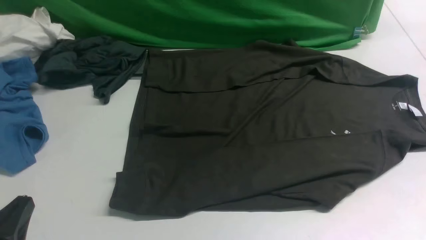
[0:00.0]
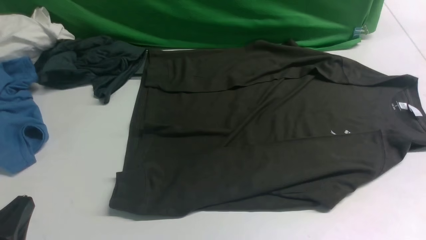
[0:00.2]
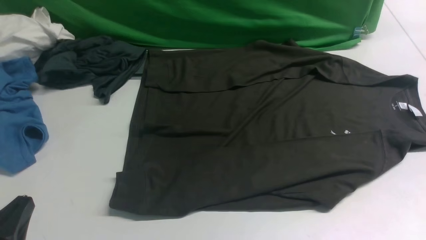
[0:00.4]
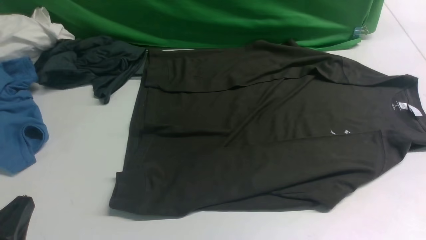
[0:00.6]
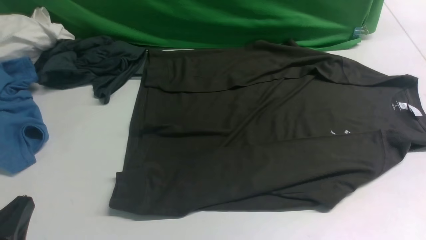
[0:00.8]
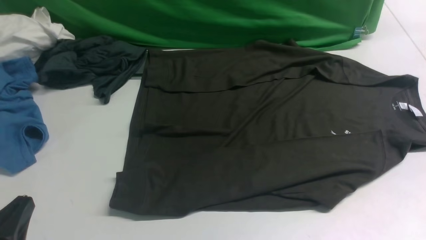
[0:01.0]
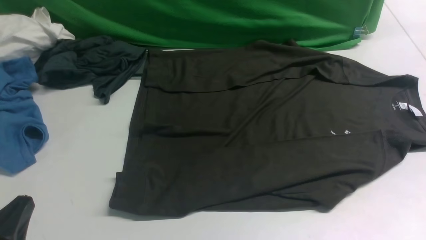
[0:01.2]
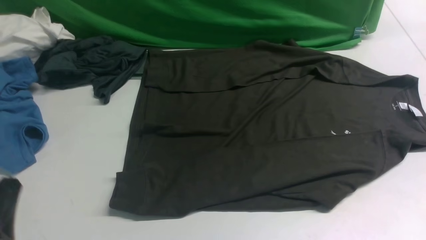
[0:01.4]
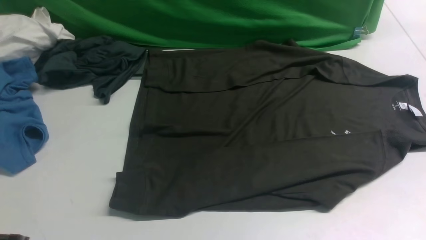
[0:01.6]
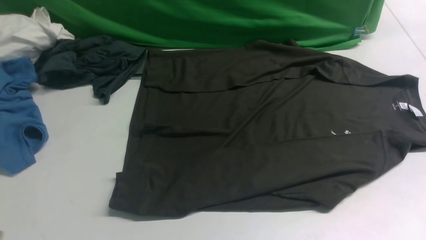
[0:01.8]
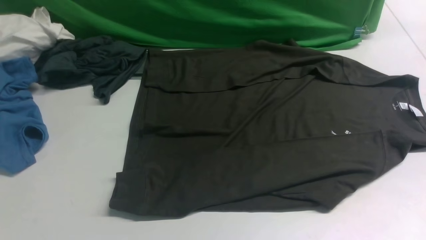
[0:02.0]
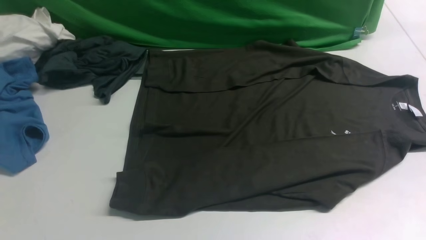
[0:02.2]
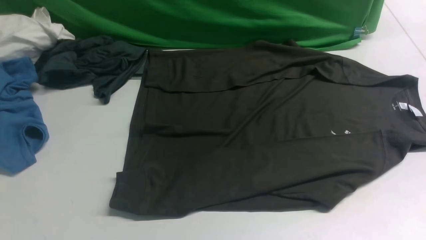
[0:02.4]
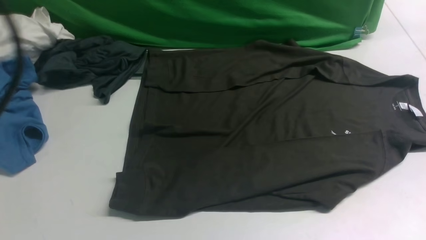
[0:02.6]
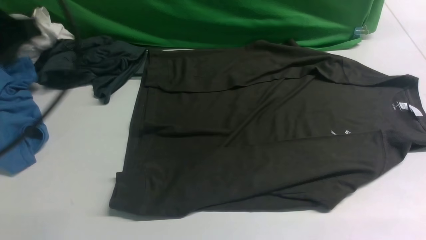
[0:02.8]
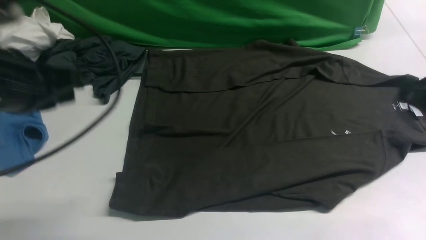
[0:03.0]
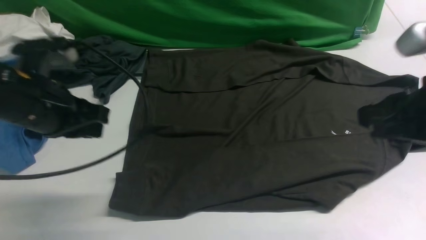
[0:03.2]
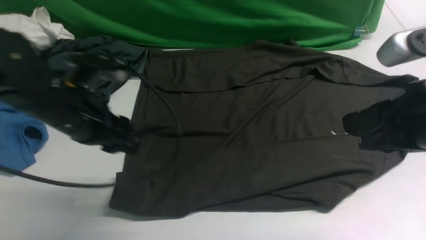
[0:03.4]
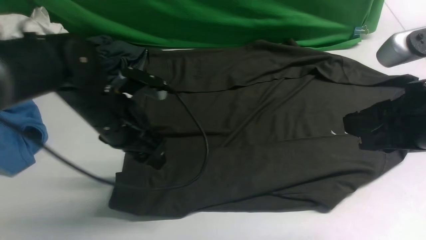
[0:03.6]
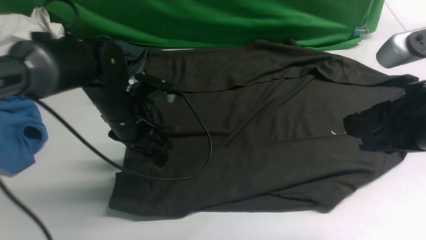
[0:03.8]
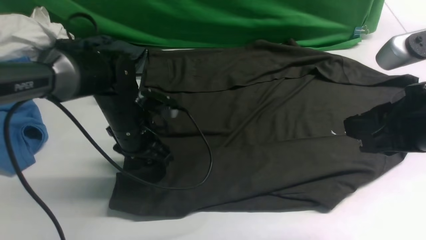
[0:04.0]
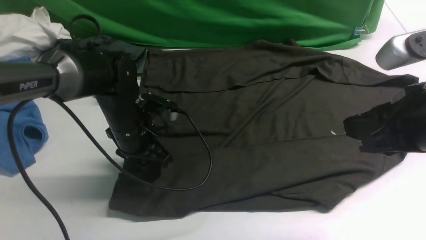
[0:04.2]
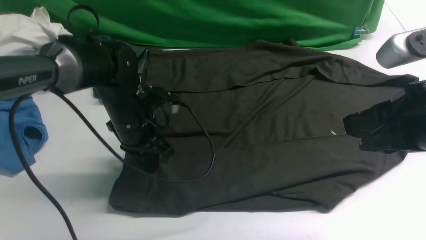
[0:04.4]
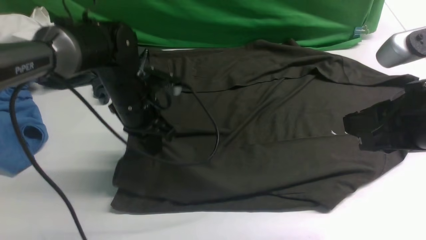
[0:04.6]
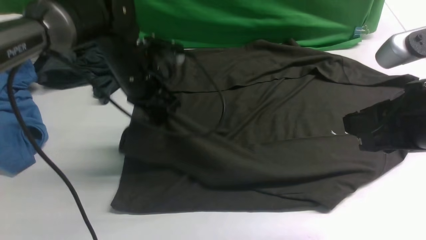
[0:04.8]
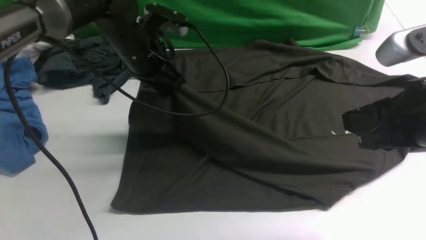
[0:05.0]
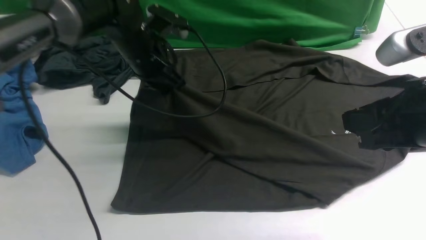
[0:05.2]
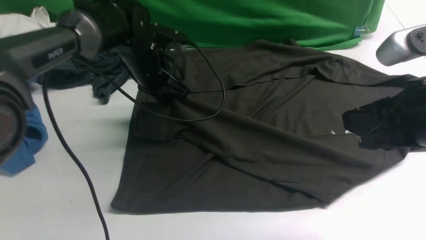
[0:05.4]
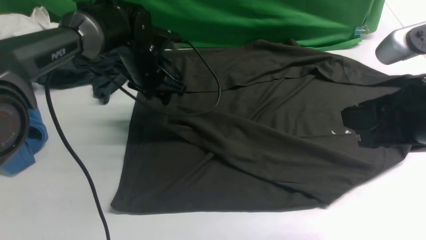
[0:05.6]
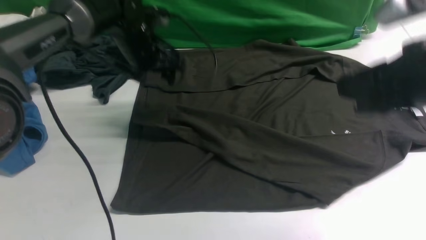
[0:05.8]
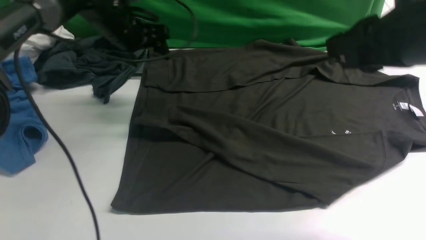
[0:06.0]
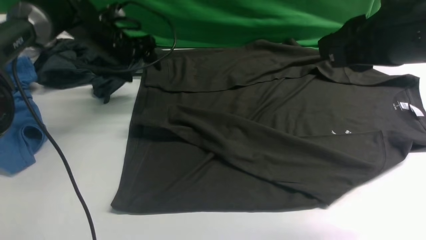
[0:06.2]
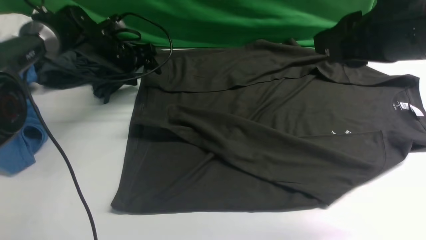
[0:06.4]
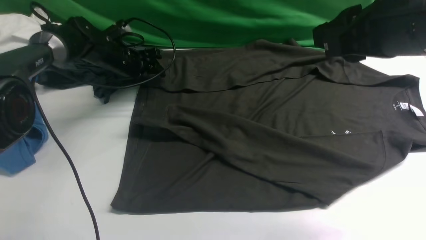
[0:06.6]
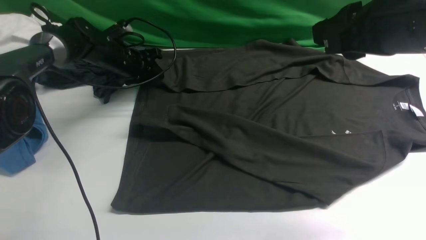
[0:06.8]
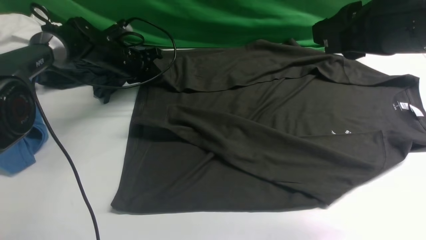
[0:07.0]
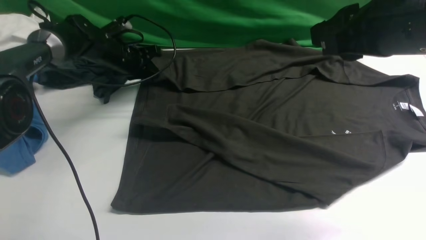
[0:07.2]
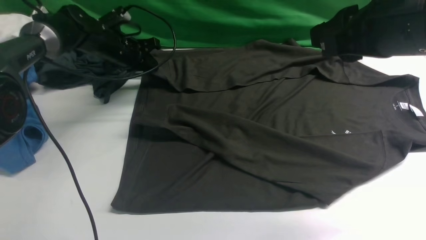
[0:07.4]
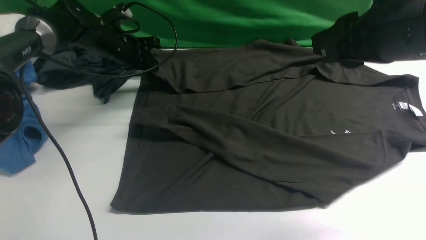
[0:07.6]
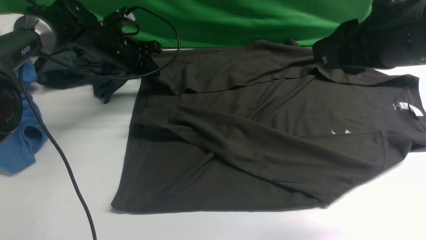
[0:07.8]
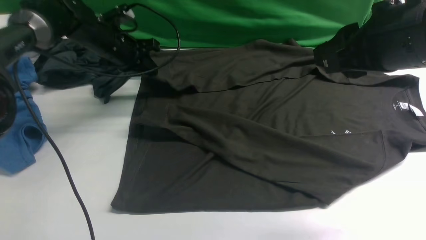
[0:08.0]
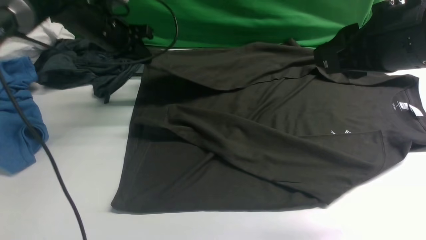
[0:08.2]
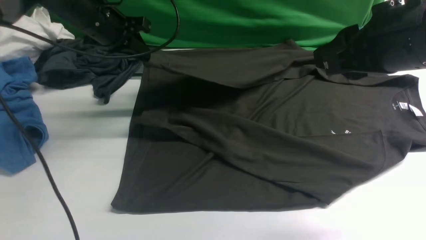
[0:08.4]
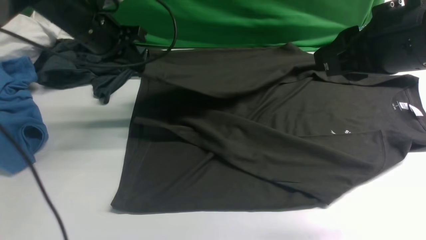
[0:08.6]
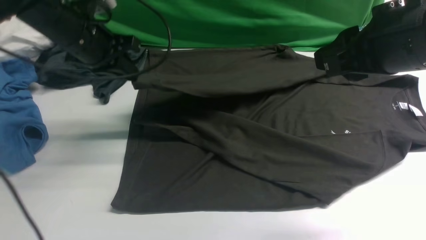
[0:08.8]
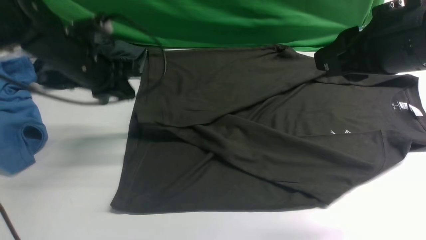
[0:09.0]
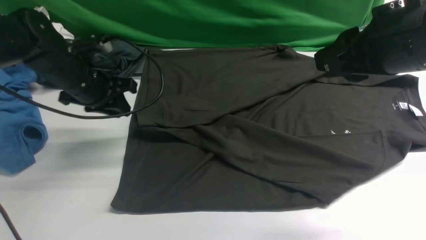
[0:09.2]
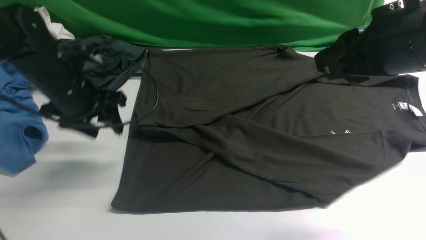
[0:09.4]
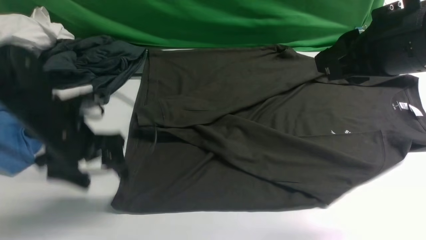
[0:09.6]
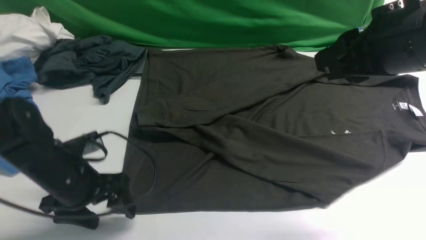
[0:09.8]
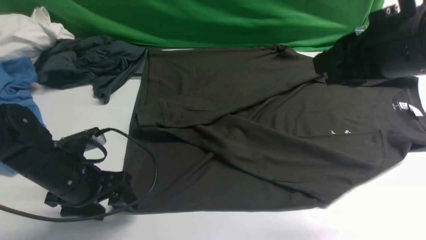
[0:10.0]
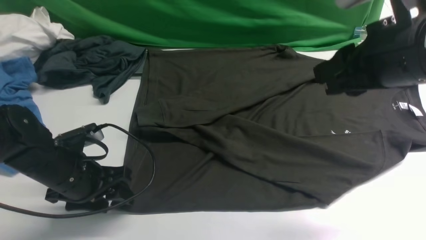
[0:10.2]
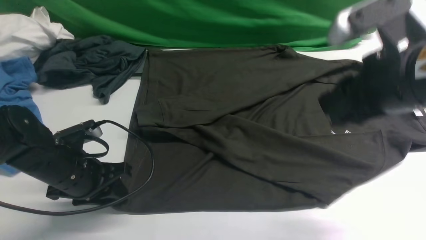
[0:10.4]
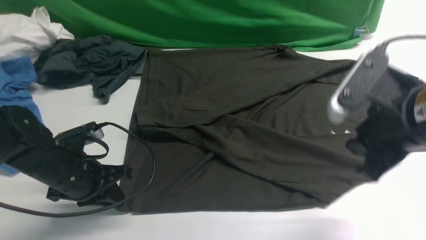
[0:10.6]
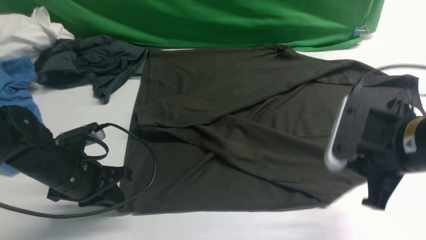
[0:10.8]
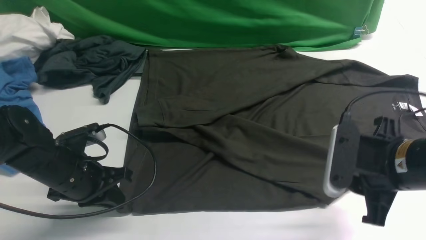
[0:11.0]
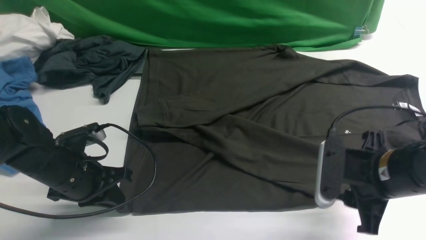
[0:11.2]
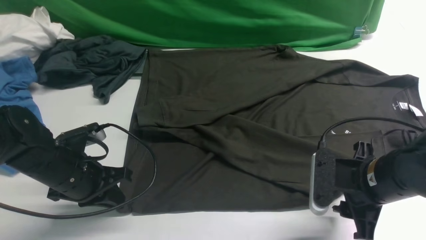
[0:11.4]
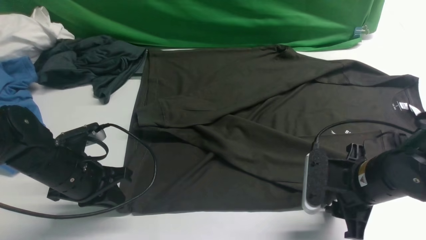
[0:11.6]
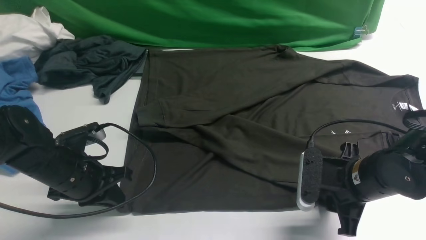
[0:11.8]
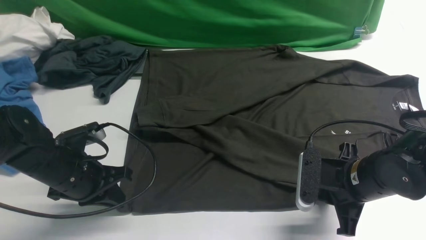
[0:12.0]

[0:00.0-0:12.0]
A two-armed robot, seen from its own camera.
Step, 0:00.0 to 0:04.4: use the left arm to clamp the cuff closest to it.
Step, 0:04.6 to 0:05.8: use the left arm to drag and place the cuff at the centered position on the left edge of the fabric.
Step, 0:06.0 to 0:07.8: use the left arm to clamp the cuff farthest from it.
Step, 0:08.2 to 0:09.0: use the left arm to drag and drop the cuff onto the cuff closest to the left arm.
0:01.6 to 0:03.0: Both grippers travel together forward and upward, some 20 cm.
0:03.0 to 0:04.4: The left gripper goes some 20 cm downward, forward and to the right, and opens, then closes again.
0:04.4 to 0:06.0: The right gripper goes roughly 5 cm upward. Meanwhile the left gripper moves forward, approximately 15 cm, and opens up.
0:06.0 to 0:07.6: The left gripper closes up.
0:07.6 to 0:09.0: The left gripper is displaced backward and upward by about 15 cm.
0:09.0 to 0:10.4: The right gripper goes about 5 cm downward. The left gripper is displaced backward and downward by some 15 cm, and opens and closes again.
0:10.4 to 0:12.0: The right gripper heads downward, covering approximately 15 cm.

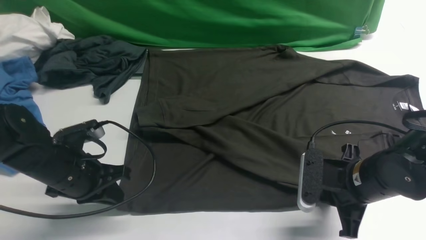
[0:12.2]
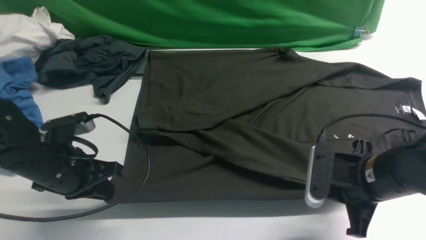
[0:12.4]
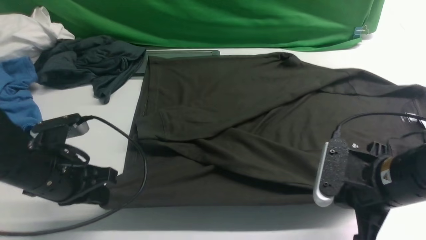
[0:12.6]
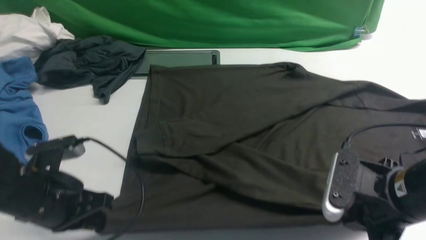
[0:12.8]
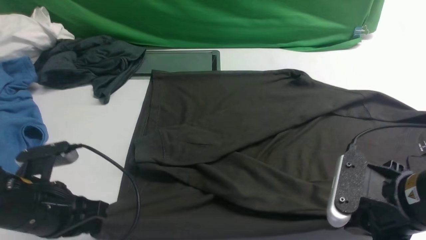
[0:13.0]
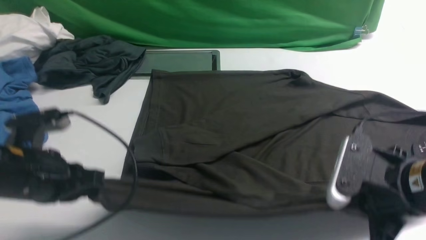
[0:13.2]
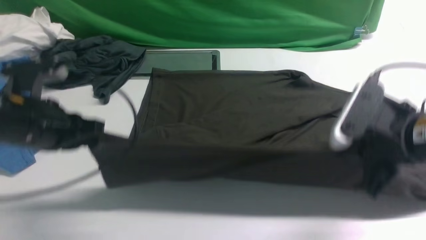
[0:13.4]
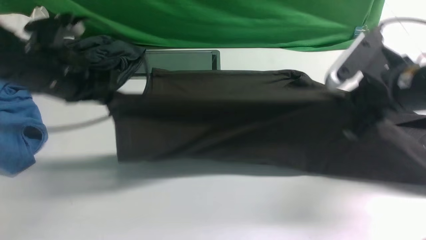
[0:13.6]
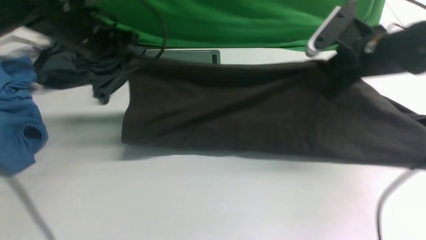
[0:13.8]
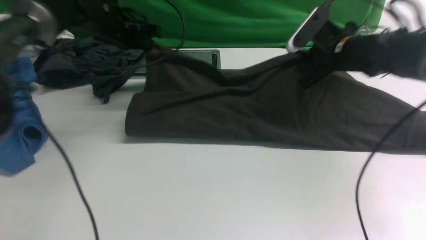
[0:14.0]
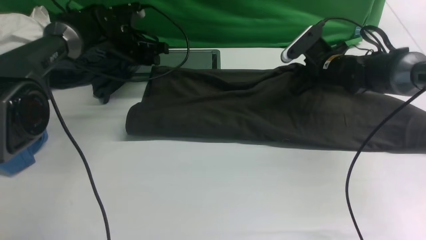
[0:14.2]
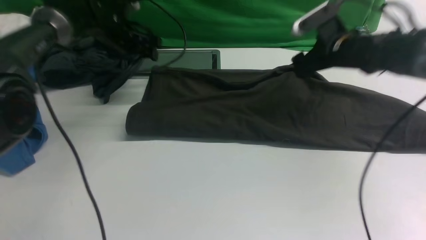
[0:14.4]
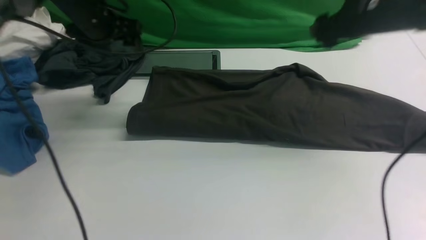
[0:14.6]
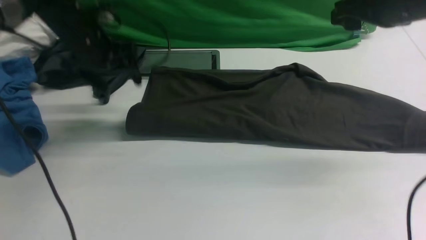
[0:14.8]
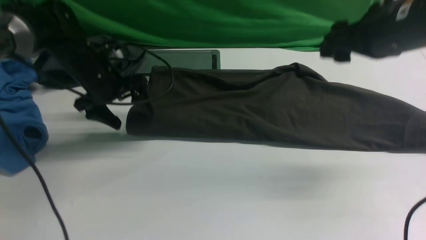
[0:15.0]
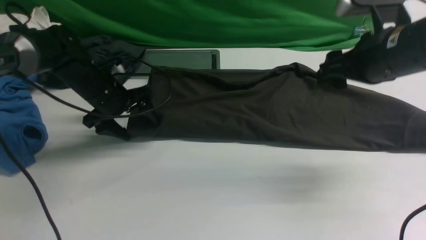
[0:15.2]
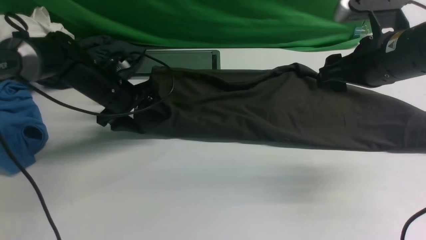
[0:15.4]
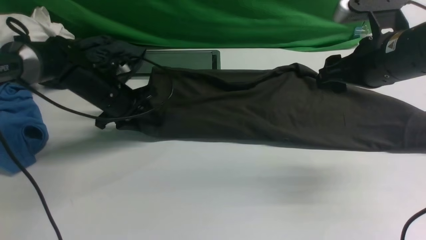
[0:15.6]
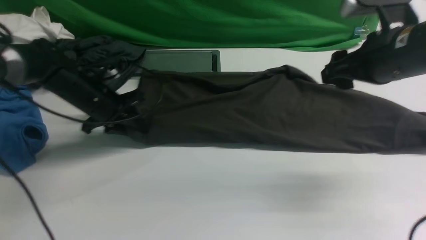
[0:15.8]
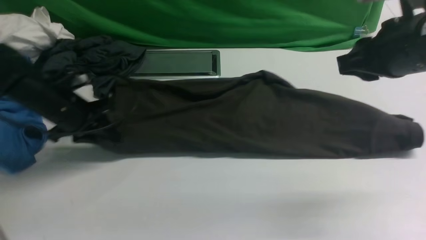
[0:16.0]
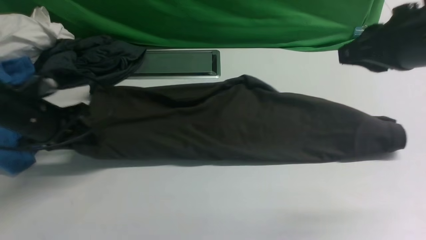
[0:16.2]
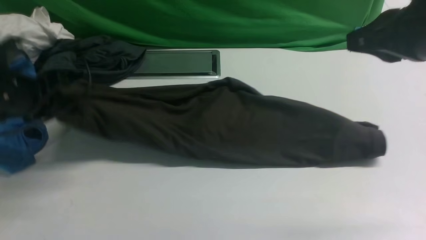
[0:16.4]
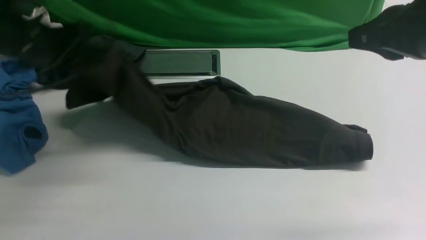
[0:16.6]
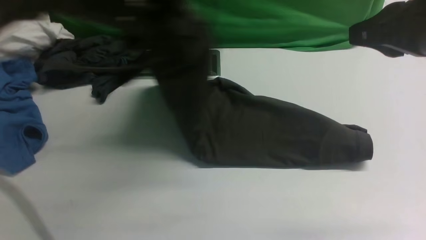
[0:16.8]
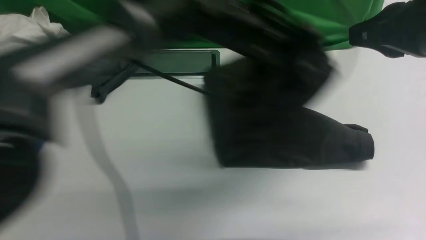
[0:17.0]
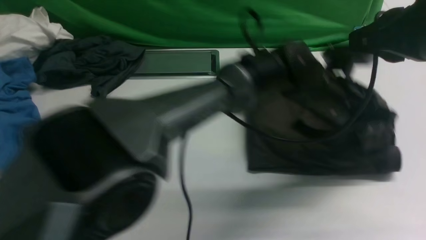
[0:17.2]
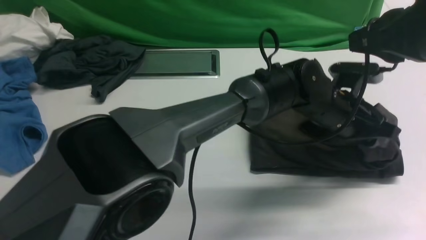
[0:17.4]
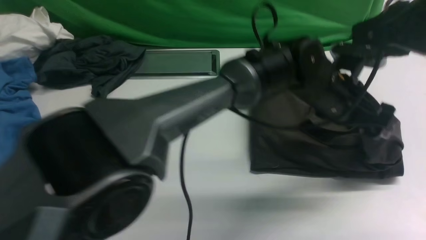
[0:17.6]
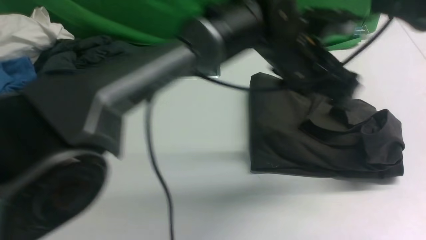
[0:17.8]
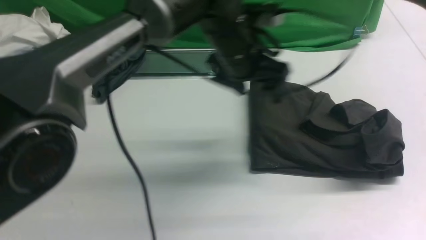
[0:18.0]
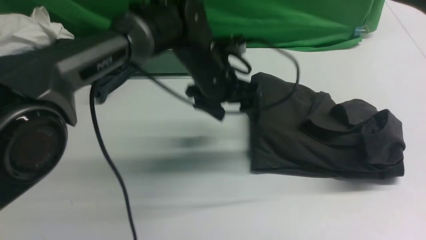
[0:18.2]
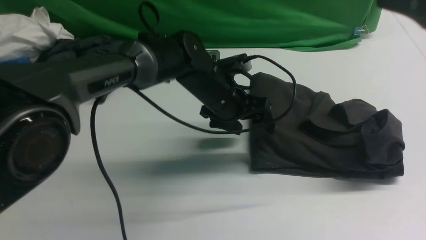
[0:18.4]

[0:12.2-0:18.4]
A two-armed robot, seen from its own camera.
Step, 0:12.6 to 0:14.4: use both arms to drag the lower edge of the fabric forward and fold it over the upper edge.
Step, 0:14.6 to 0:16.2: Hold the left edge of the fabric with your left arm.
Step, 0:16.4 to 0:17.8: Drag the left edge of the fabric to the left with your left arm and fold it to the right edge.
0:12.2 to 0:13.8: Both grippers move forward and upward, some 20 cm.
0:13.8 to 0:15.4: The left gripper moves up and down over some 10 cm, changing direction 2 times, and opens its fingers, while the right gripper goes up and down, about 15 cm each way, reversing 2 times, and opens its fingers.
0:15.4 to 0:16.8: The left gripper shifts approximately 20 cm upward and to the right, and closes up, while the right gripper is displaced upward and backward by some 10 cm, and closes up.
0:16.8 to 0:18.4: The right gripper opens up, while the left gripper shifts some 15 cm downward, travels to the right and back again, about 25 cm each way, and opens up.
